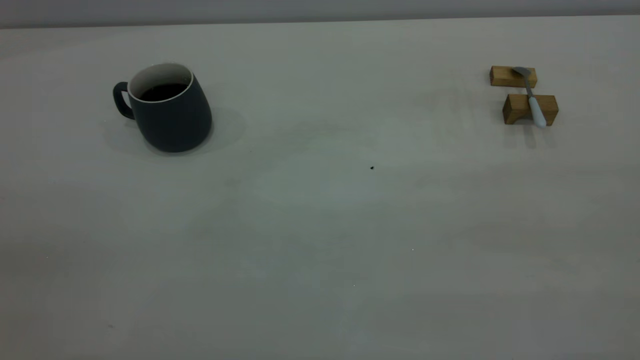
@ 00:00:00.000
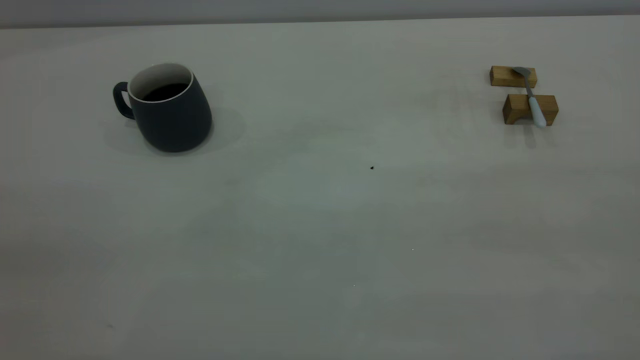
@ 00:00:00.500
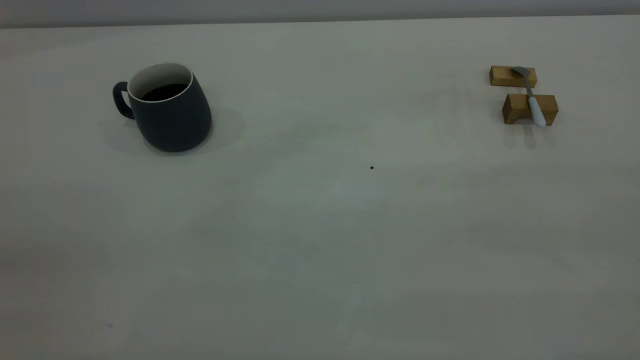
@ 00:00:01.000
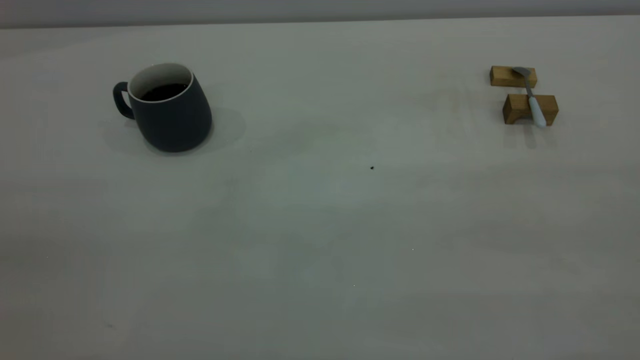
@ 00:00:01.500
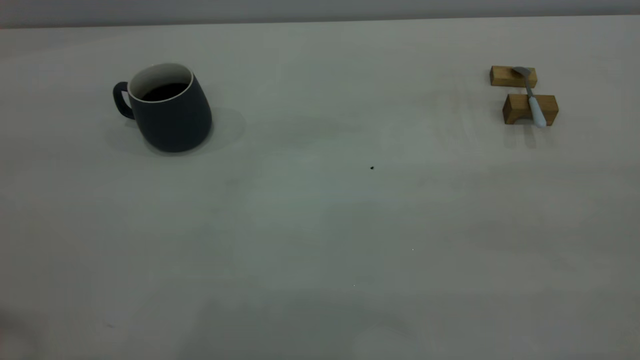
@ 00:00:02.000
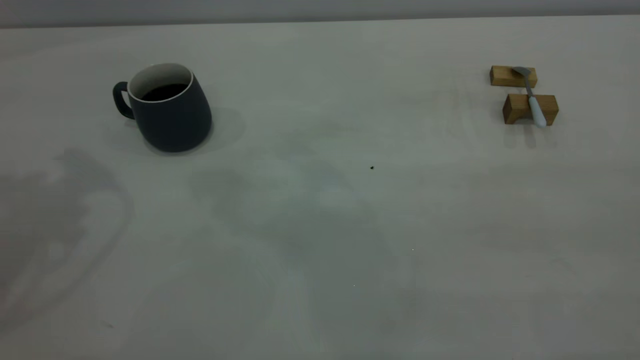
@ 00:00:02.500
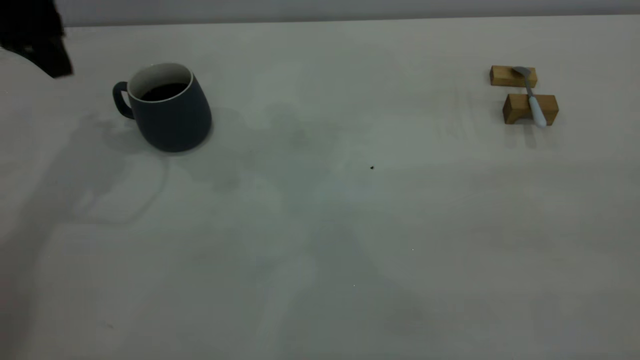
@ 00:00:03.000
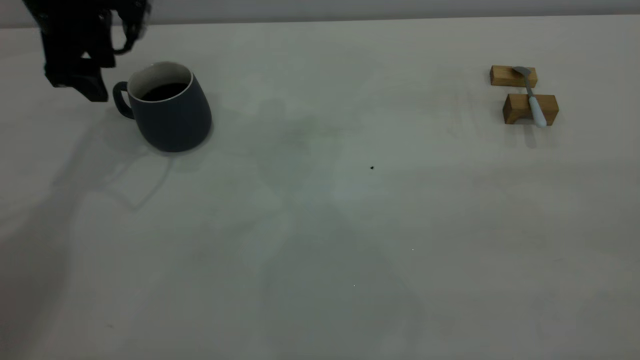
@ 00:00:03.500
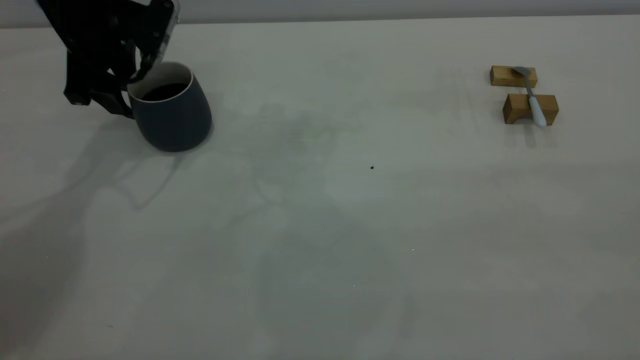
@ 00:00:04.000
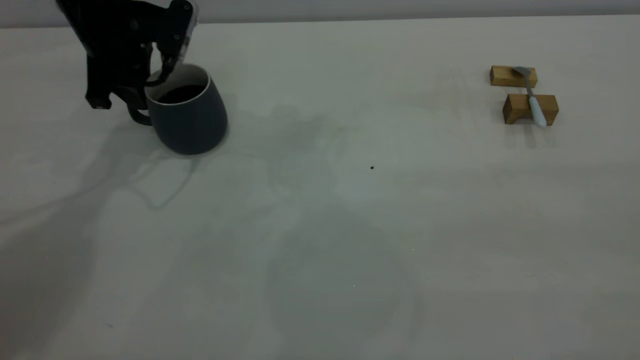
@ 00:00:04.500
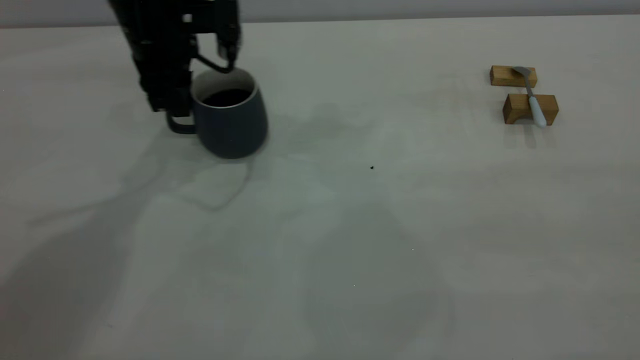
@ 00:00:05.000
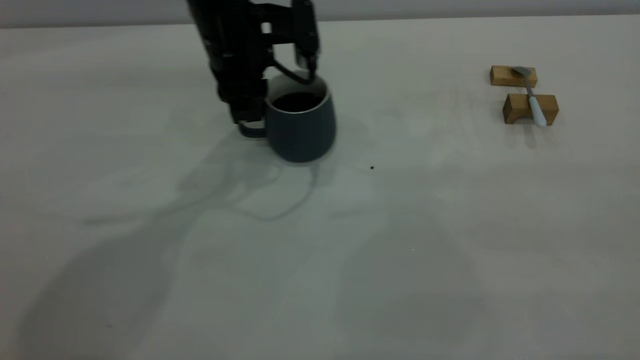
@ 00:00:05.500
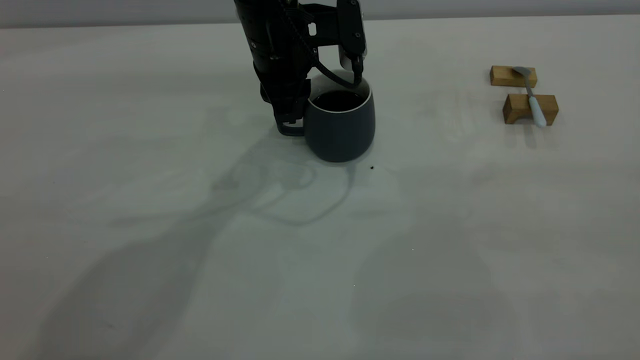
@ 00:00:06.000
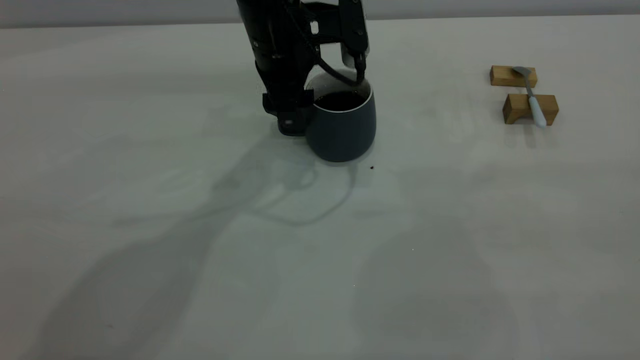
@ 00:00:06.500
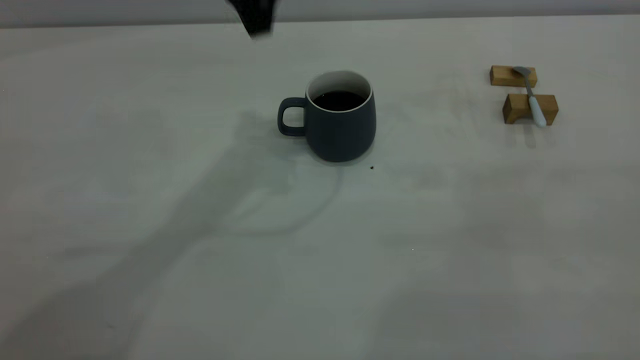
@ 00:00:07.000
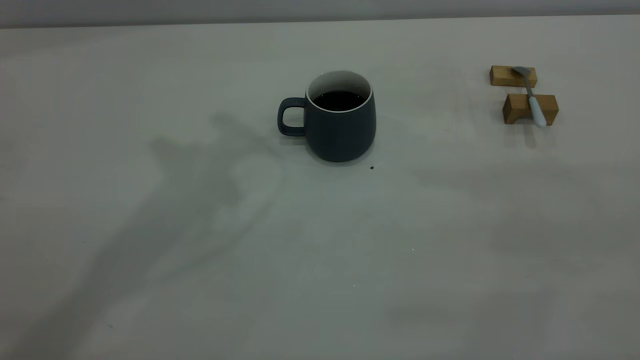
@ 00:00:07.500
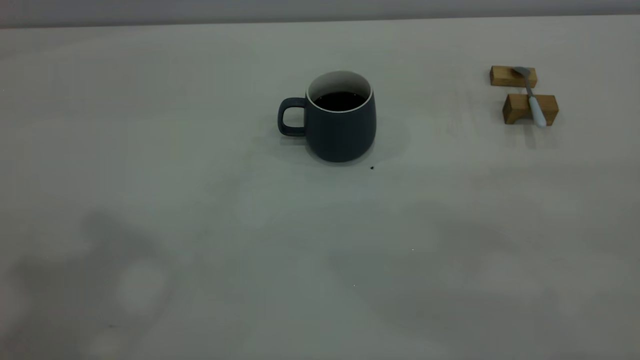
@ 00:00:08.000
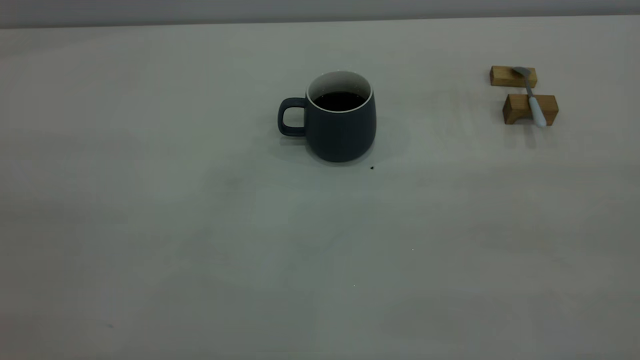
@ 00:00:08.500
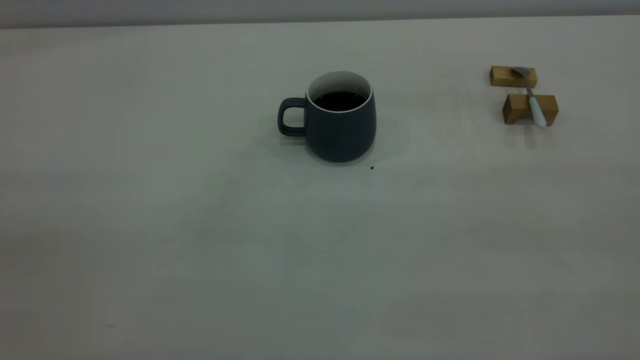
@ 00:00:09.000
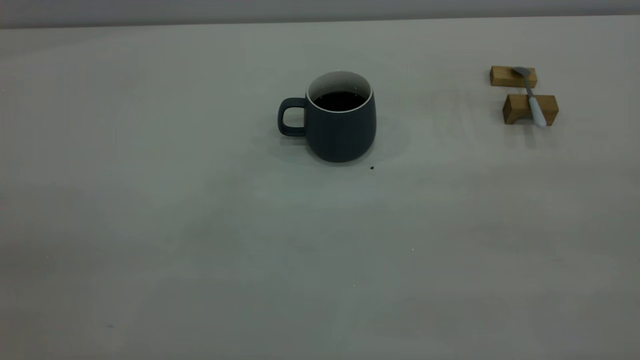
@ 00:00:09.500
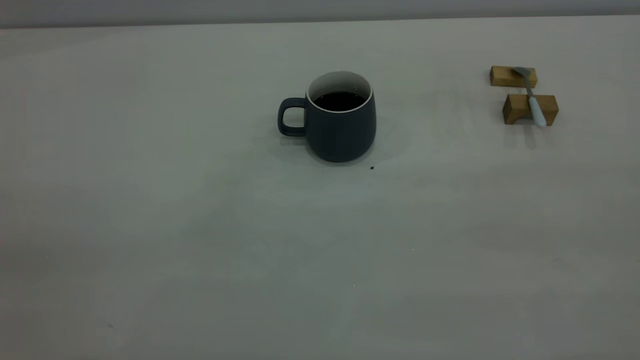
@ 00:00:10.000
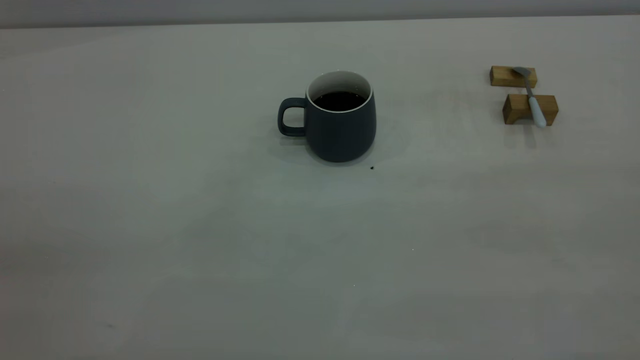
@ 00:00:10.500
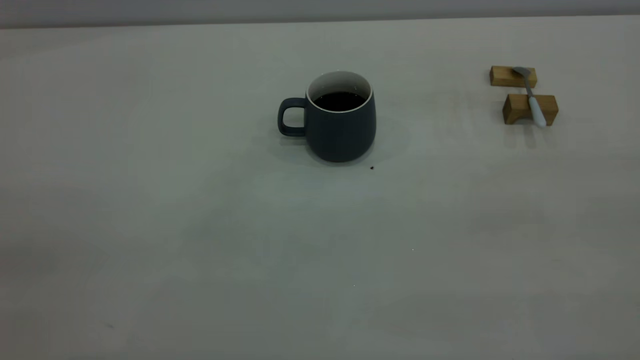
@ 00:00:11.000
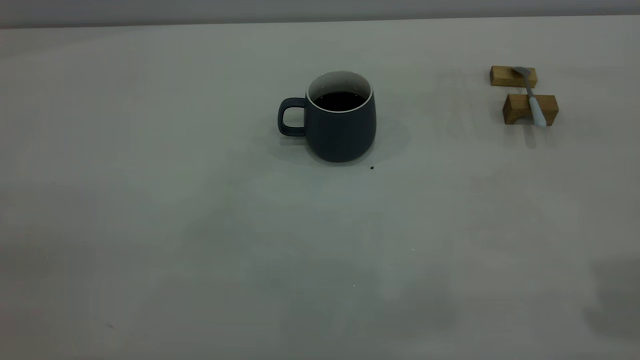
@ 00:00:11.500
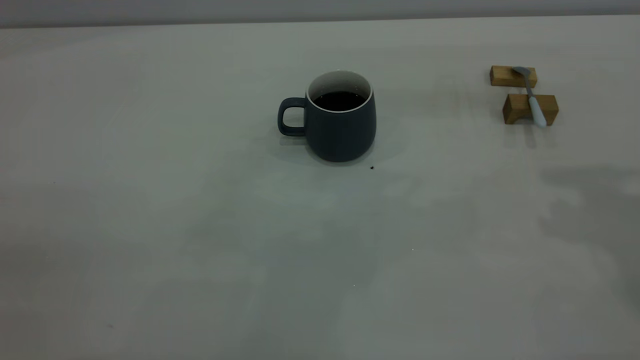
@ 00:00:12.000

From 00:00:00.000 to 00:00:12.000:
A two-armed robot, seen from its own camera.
Step, from 00:00:00.000 to 00:00:06.500: Move the cup with coffee to the center of view.
From 00:00:02.000 to 00:00:04.000: The left gripper heads forward and downward, covering about 40 cm.
From 00:00:04.000 to 00:00:06.000: The left gripper travels to the right by roughly 20 cm, and closes its fingers.
From 00:00:06.000 to 00:00:08.000: The left gripper moves upward, backward and to the left, roughly 40 cm, and opens, then closes again.

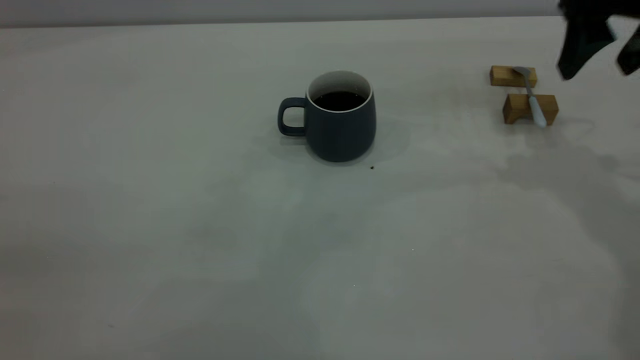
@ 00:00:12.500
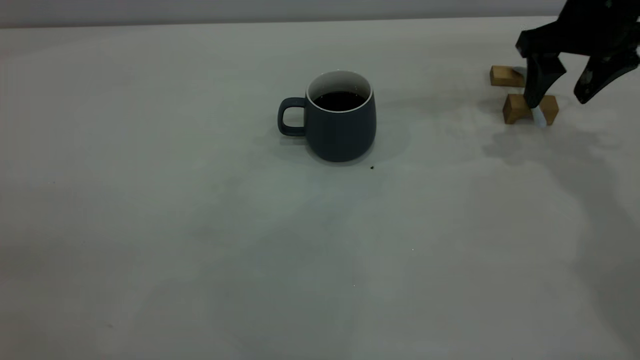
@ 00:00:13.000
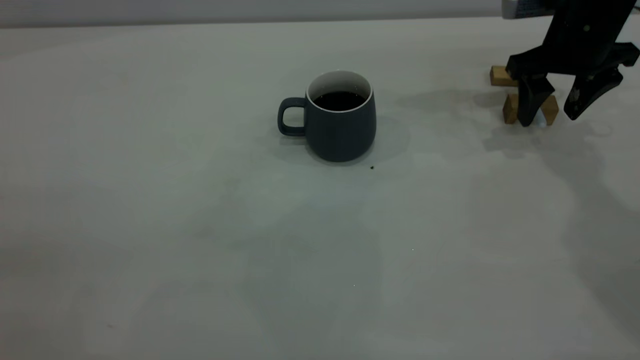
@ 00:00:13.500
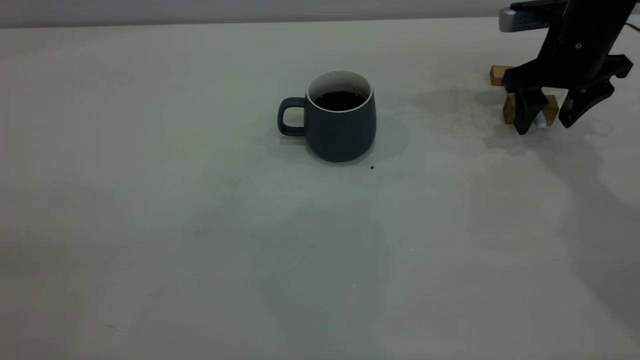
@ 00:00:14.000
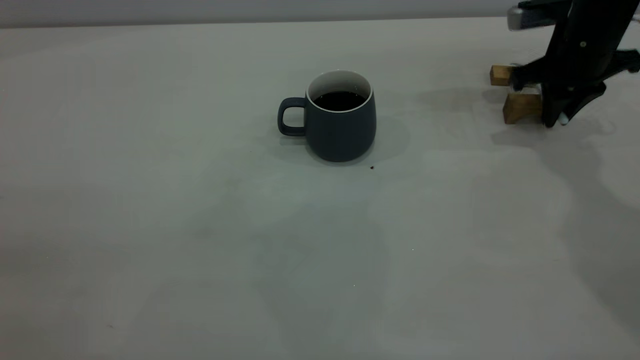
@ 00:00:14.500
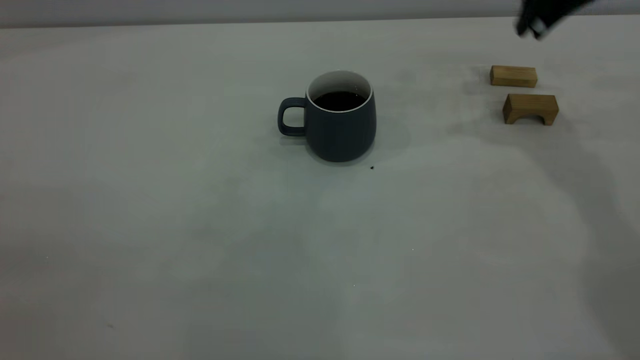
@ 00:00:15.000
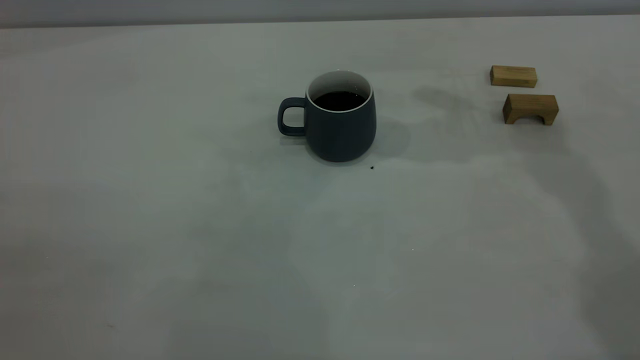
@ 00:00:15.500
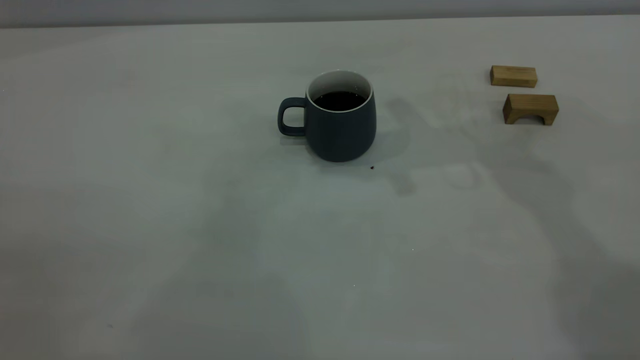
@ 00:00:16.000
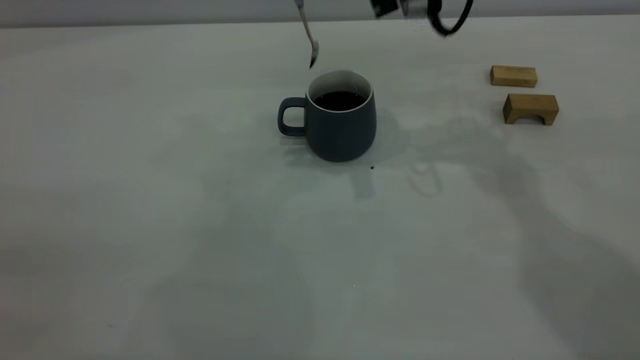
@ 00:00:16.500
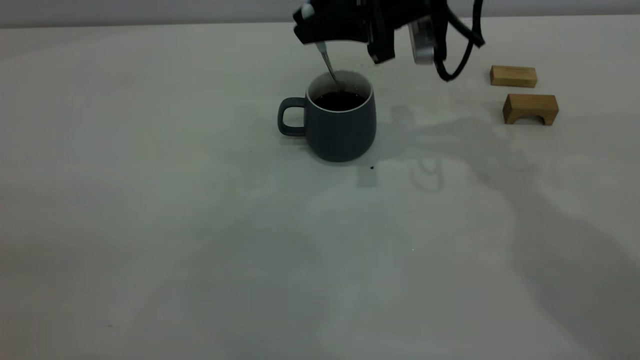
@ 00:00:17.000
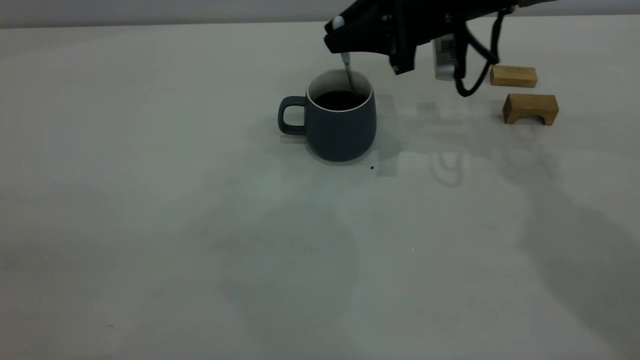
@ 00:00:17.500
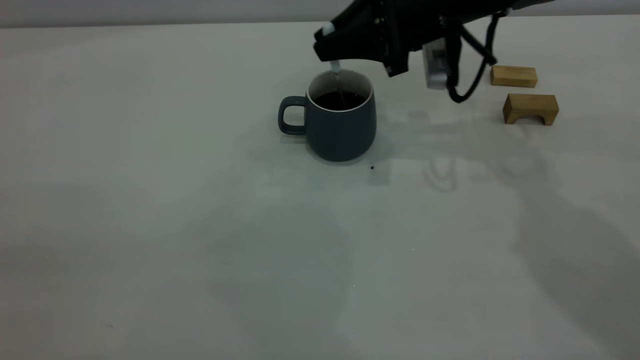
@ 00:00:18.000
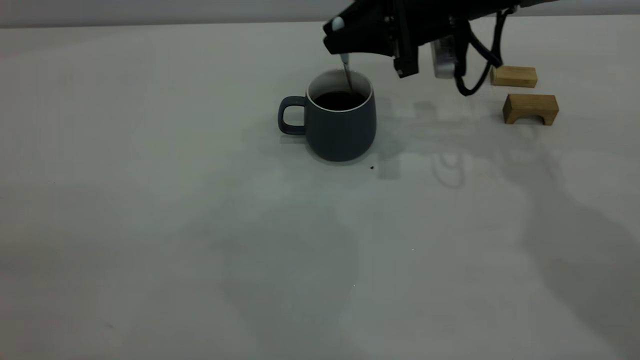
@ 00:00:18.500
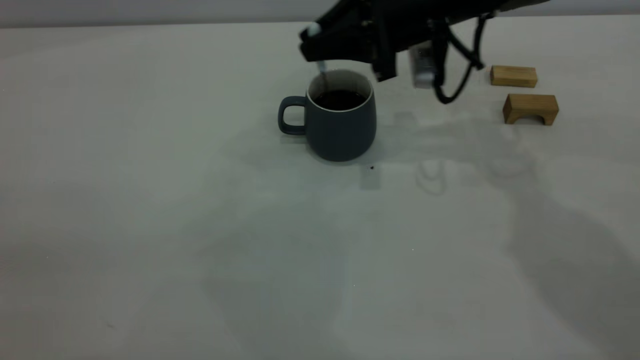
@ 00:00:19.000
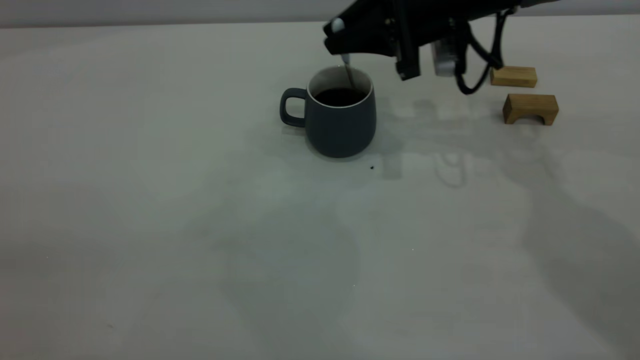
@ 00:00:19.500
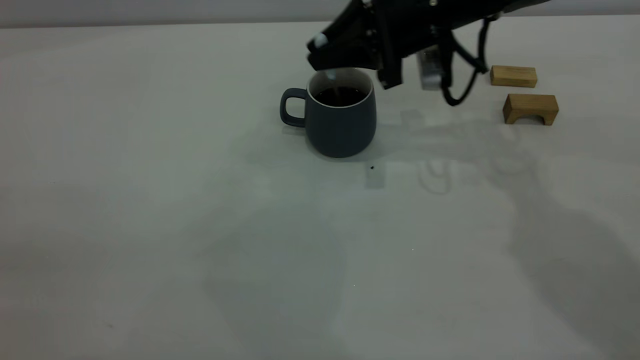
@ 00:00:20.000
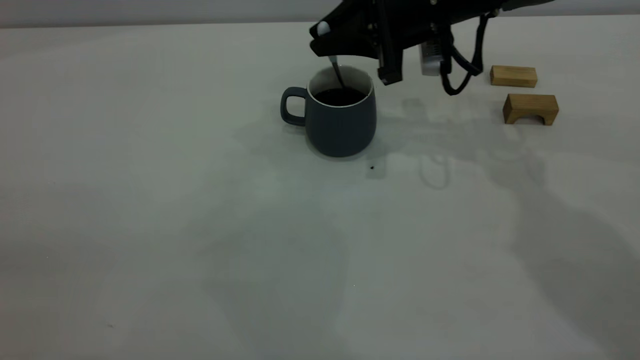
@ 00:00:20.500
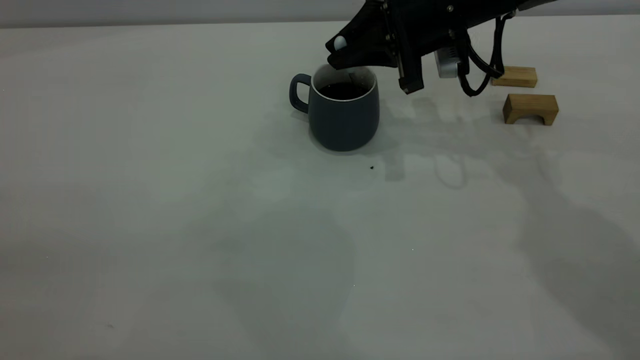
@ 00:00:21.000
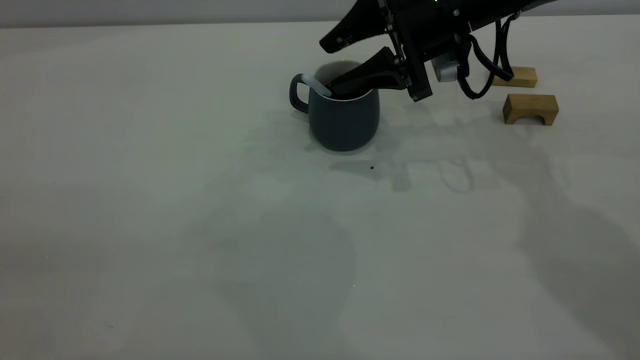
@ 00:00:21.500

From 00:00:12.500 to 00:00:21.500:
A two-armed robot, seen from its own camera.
Step, from 00:00:12.500 to 00:00:14.500: Pick up the spoon.
From 00:00:12.500 to 00:00:14.500: The right gripper heads downward and forward, covering some 10 cm, and closes up.
From 00:00:14.500 to 00:00:17.000: The right gripper shifts approximately 15 cm to the left.
From 00:00:17.000 to 00:00:19.500: The grippers stay close to where they were, moving slightly.
From 00:00:19.500 to 00:00:21.500: The right gripper opens its fingers.
